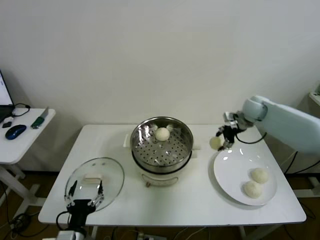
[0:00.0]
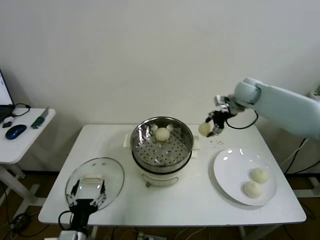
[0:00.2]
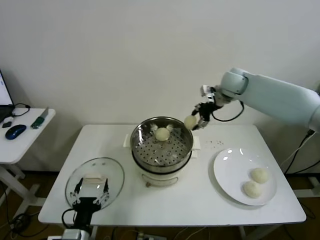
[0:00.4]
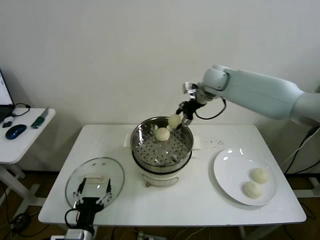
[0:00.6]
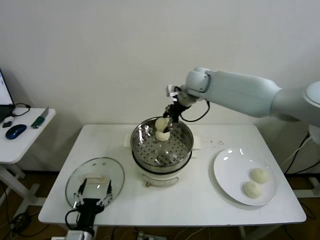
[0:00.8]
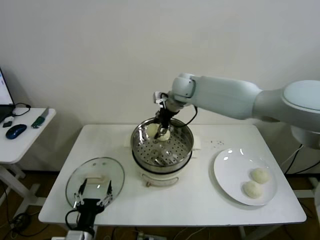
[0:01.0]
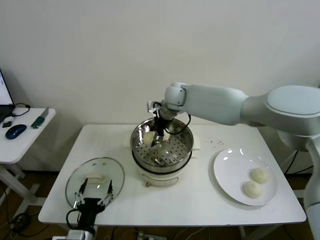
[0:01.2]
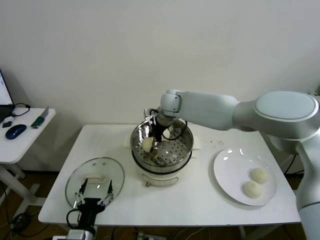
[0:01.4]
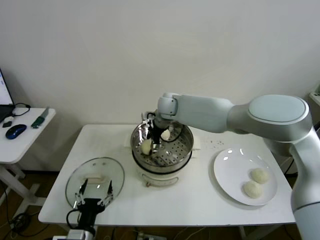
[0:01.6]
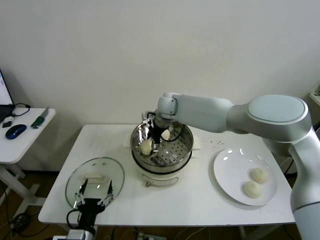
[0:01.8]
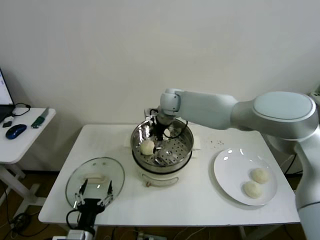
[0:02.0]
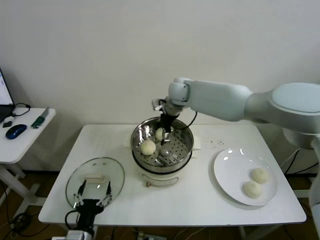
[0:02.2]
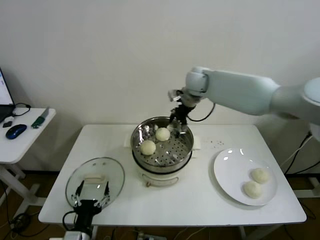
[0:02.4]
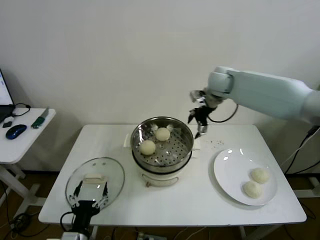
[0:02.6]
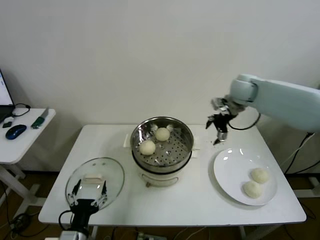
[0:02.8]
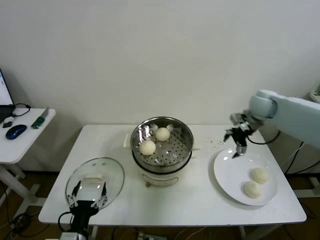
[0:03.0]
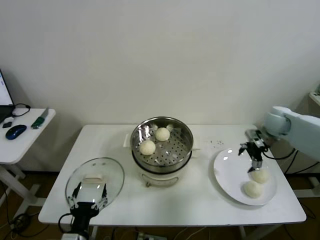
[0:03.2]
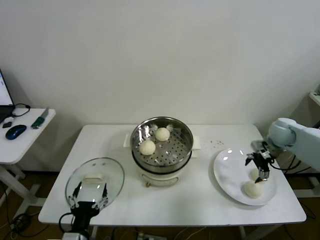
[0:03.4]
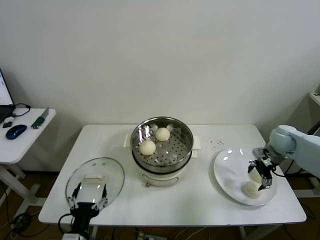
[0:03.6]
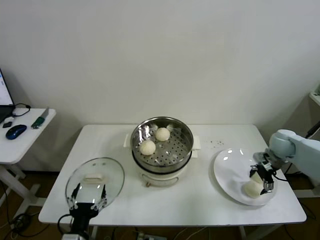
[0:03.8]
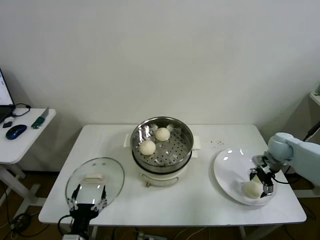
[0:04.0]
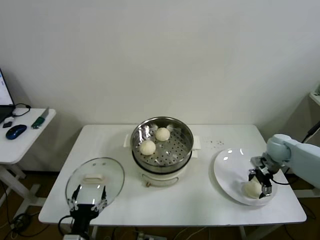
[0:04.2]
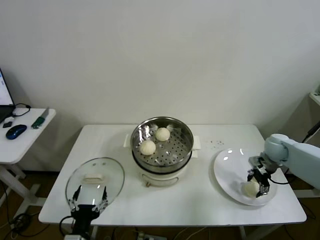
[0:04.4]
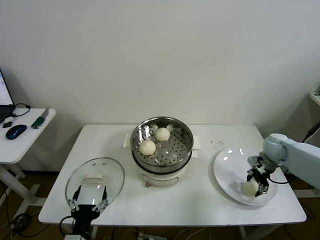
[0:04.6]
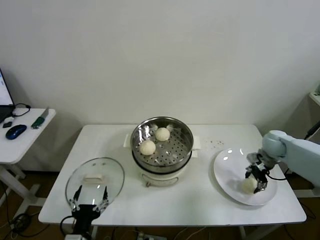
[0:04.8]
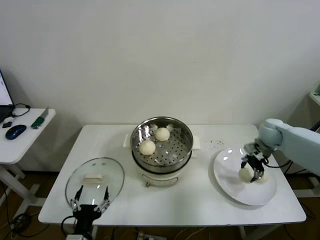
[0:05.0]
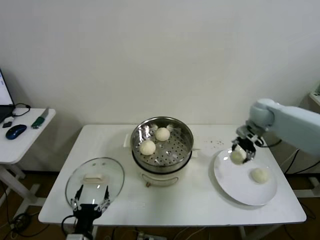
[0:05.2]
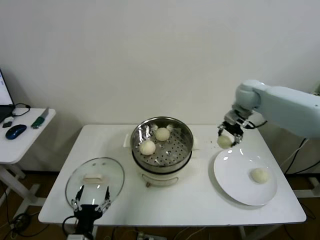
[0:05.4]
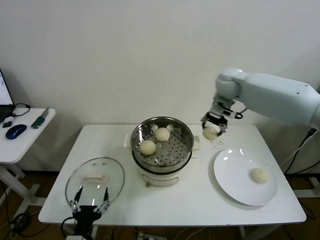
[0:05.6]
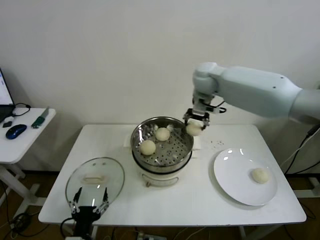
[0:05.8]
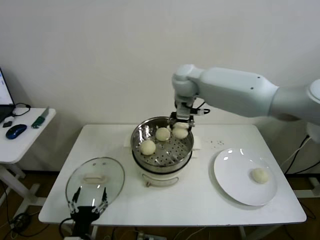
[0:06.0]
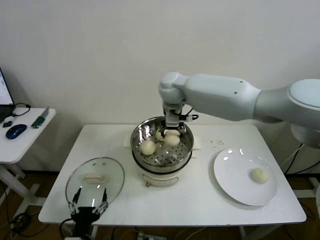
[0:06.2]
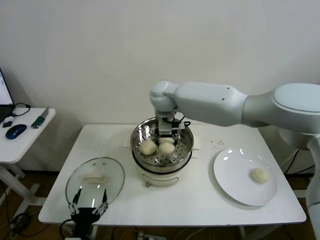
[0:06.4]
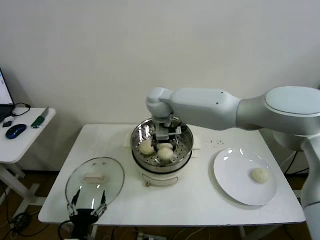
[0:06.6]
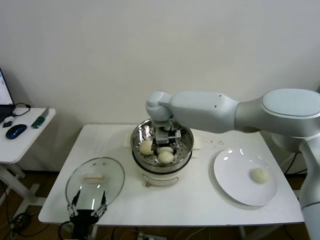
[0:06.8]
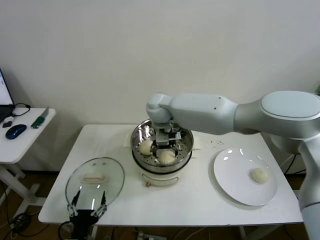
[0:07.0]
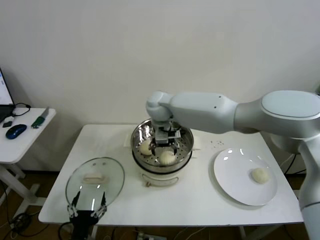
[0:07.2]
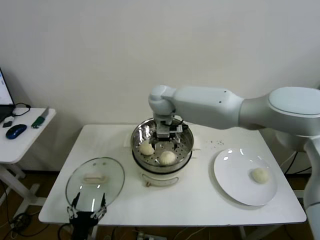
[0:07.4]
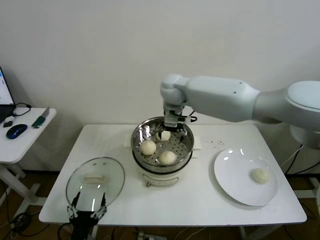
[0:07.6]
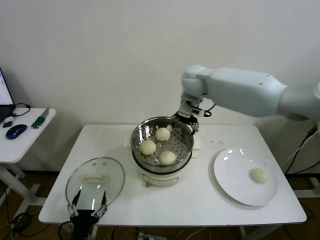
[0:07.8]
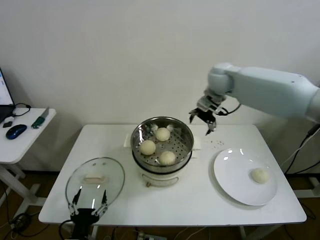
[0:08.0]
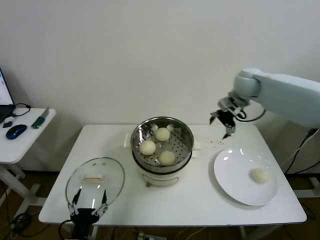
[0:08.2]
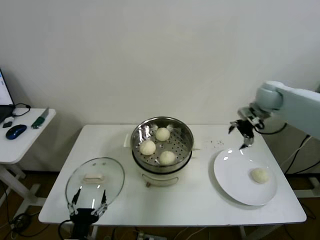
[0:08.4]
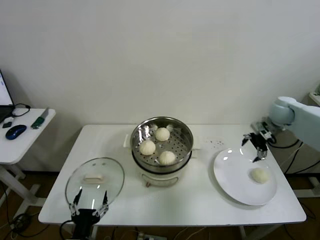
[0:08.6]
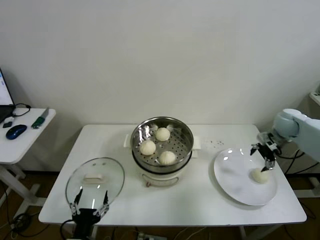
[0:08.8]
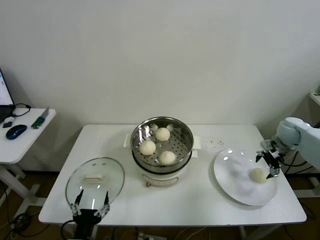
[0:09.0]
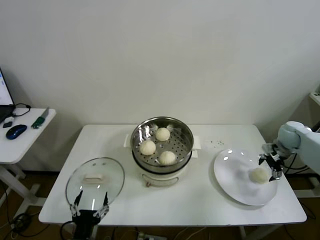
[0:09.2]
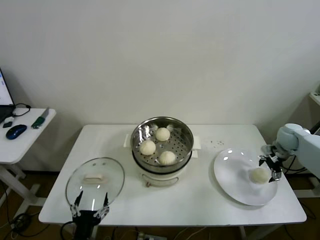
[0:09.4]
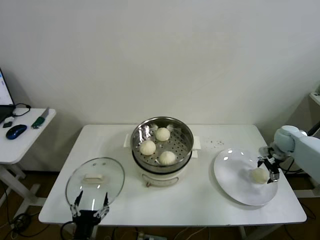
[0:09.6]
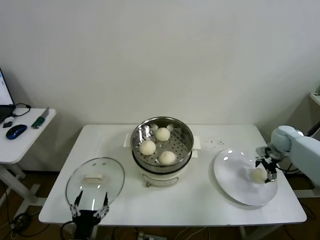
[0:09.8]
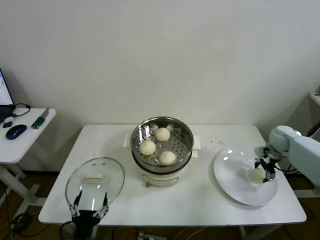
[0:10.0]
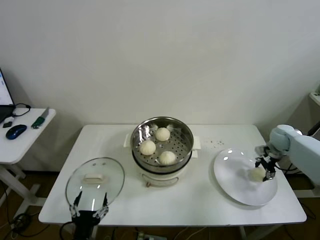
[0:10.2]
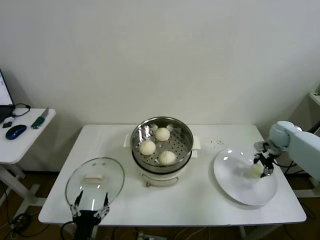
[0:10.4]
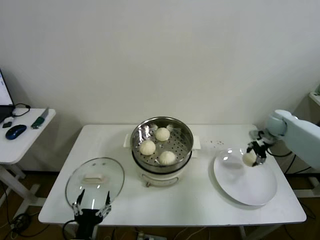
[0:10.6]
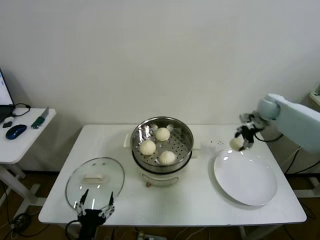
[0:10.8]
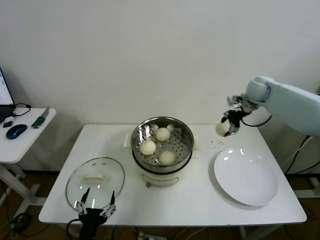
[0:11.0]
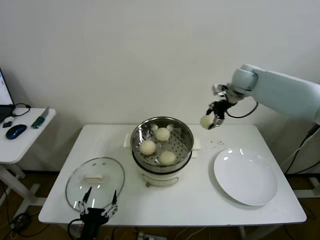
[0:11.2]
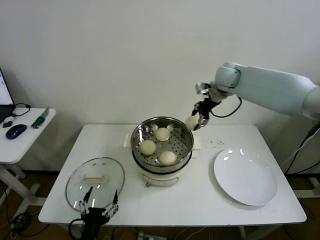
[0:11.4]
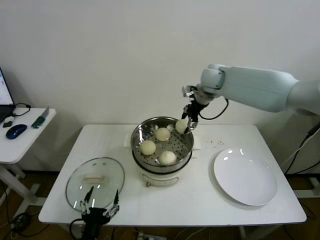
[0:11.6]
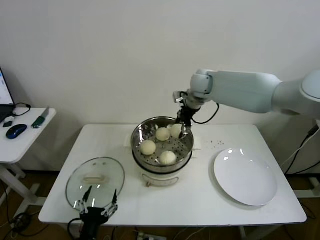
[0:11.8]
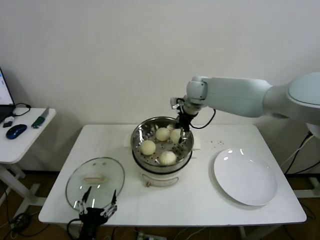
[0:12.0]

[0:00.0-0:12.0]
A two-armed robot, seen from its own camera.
Step, 0:00.0 to 0:01.6: Place the baozi on the steamer with right gripper.
Step, 0:01.8 to 0:04.2: Grasp the baozi in the plate with right gripper.
Step, 0:04.4 to 0:06.8: Place the baozi on the steamer with right gripper.
Step, 0:07.0 to 0:10.0: Grasp the baozi in the plate with right gripper.
0:00.0 to 0:01.6: The right gripper goes approximately 30 cm to the left, and opens its fingers.
0:01.6 to 0:03.0: The right gripper shifts about 30 cm to the right, and opens up.
0:03.0 to 0:04.4: The right gripper is displaced downward, to the right and backward by some 20 cm, and closes.
0:04.4 to 0:06.0: The right gripper is displaced to the left and upward by some 40 cm.
0:06.0 to 0:07.6: The right gripper opens its fingers.
0:07.6 to 0:09.0: The right gripper moves to the right, some 40 cm.
0:09.0 to 0:10.4: The right gripper closes.
0:10.4 to 0:12.0: The right gripper goes about 40 cm to the left and upward.

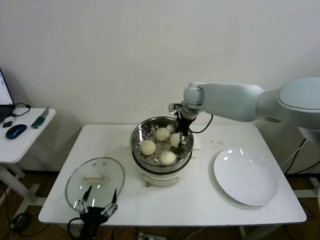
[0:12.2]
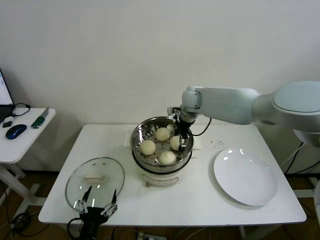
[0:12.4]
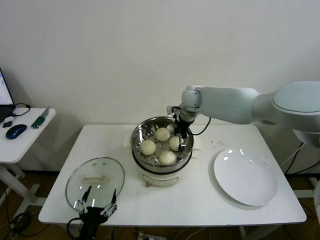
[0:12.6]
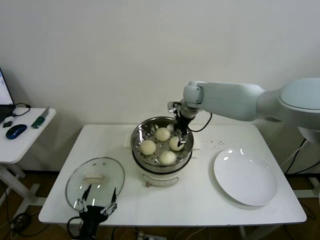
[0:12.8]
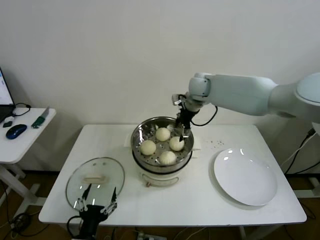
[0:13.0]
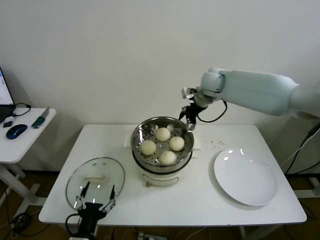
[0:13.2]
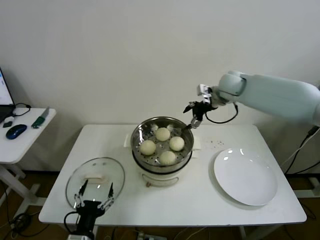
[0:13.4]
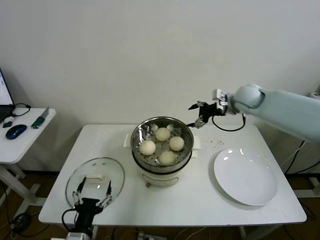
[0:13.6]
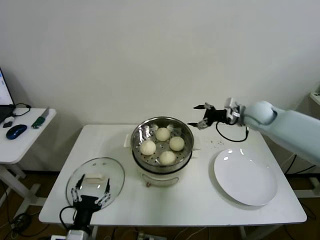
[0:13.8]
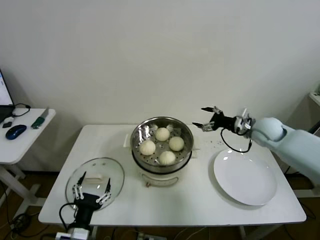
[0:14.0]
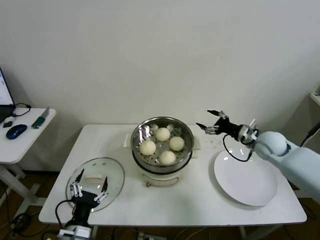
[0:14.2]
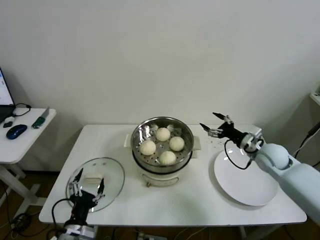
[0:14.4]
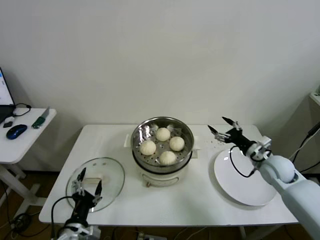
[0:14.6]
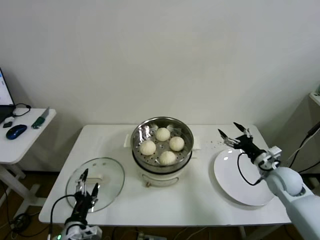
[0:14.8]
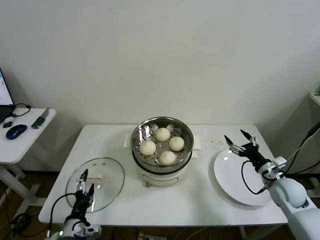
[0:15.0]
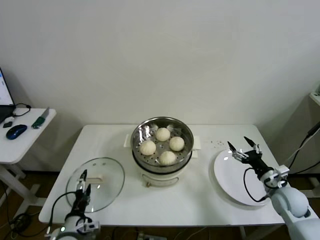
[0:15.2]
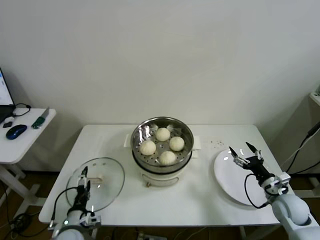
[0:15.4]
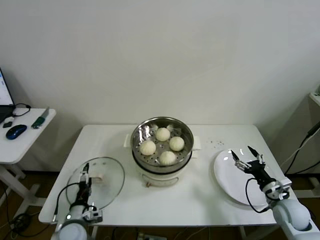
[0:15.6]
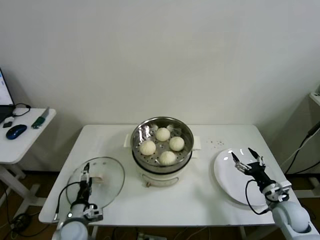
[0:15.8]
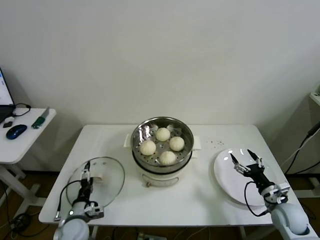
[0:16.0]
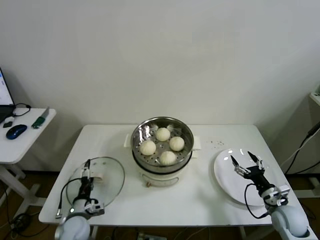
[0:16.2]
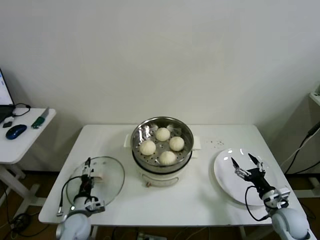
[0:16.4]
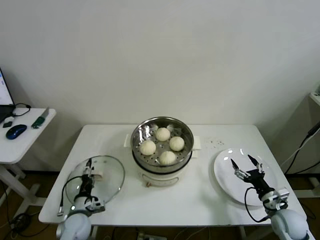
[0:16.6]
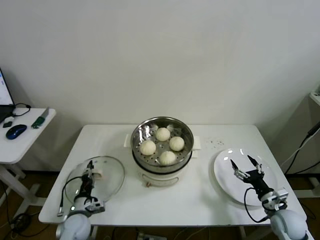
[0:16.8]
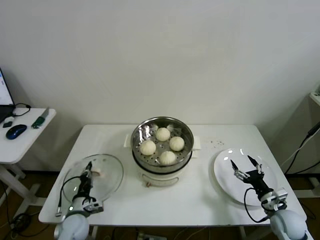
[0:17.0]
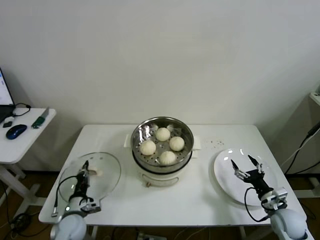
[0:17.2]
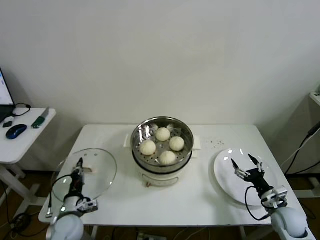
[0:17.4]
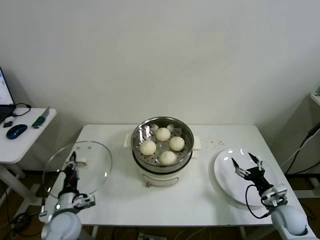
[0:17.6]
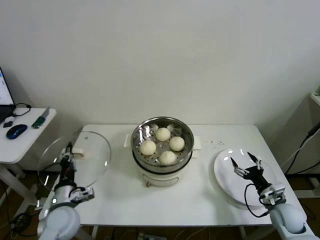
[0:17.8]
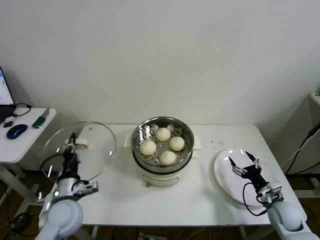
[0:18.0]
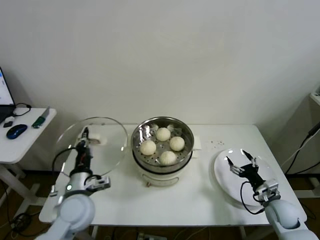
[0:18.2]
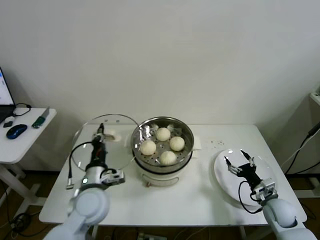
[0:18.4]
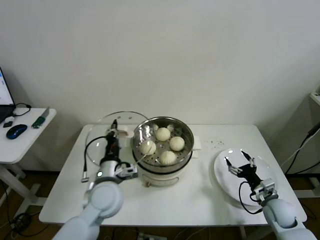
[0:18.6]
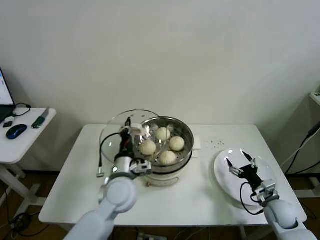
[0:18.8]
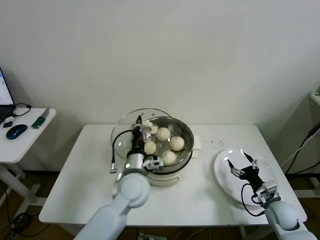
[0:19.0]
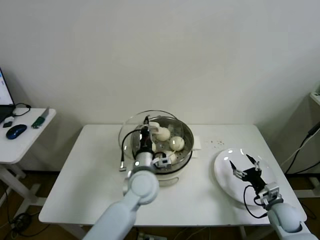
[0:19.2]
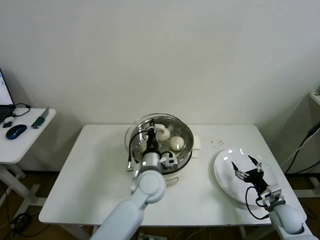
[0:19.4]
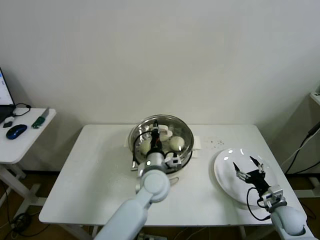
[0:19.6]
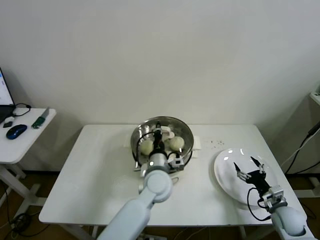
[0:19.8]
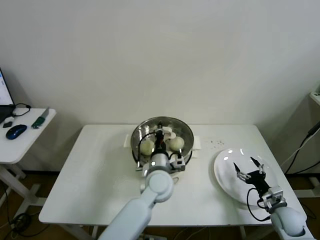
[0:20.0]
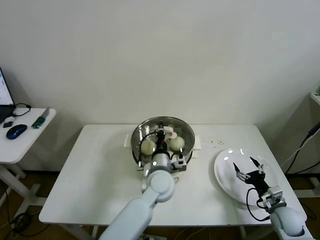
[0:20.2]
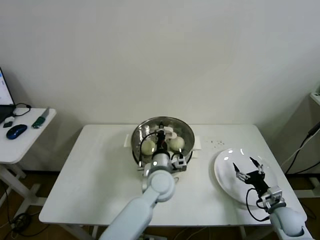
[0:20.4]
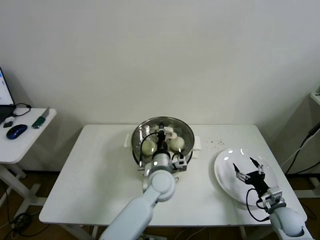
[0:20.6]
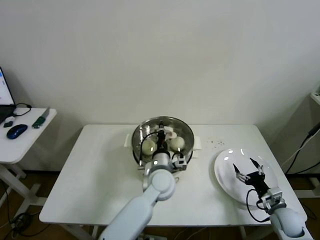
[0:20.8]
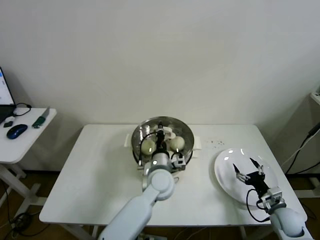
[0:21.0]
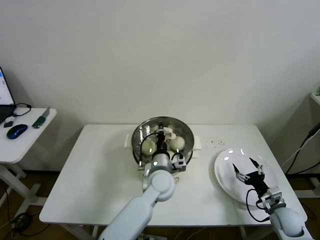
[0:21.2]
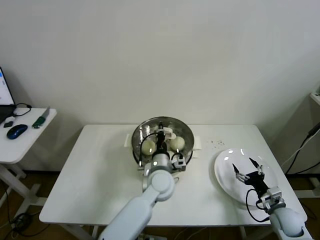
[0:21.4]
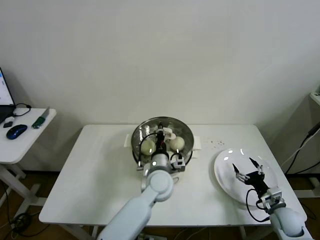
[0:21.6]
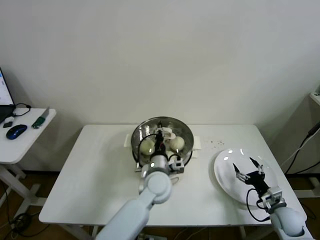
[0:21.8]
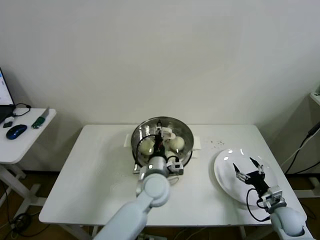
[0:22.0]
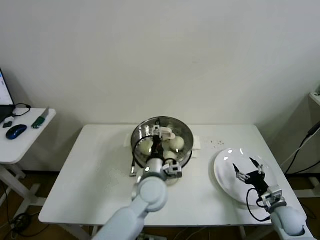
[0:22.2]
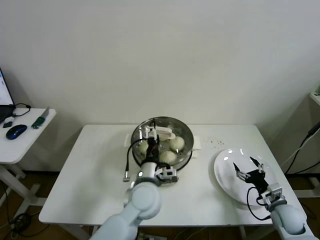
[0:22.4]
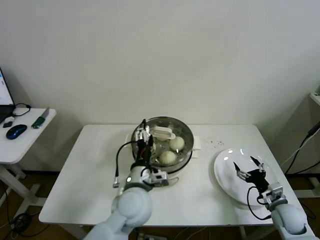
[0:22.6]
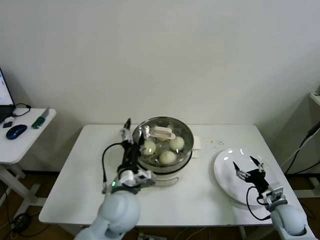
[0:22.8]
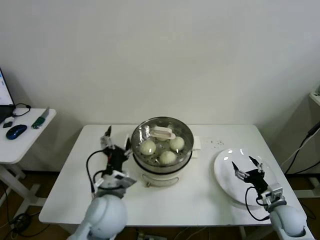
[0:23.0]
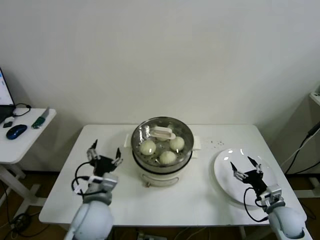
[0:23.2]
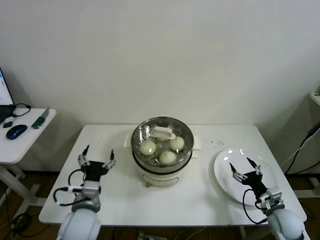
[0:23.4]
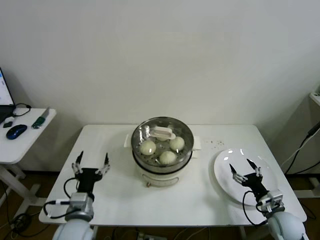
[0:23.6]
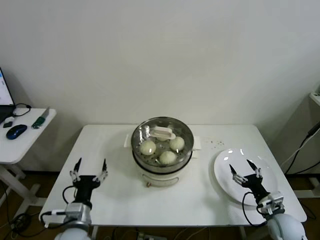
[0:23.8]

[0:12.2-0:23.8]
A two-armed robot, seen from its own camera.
Step, 0:12.6 to 0:17.0: Grasp the pot lid with left gripper.
Step, 0:17.2 to 0:21.6: Place the pot lid on the steamer with left gripper.
0:12.2 to 0:13.6: The right gripper travels to the right by roughly 15 cm, and opens up.
0:13.6 to 0:15.0: The right gripper heads downward, backward and to the right, covering roughly 35 cm. The left gripper moves approximately 5 cm.
0:15.0 to 0:16.6: The left gripper shifts roughly 15 cm forward and downward; the right gripper travels backward and downward by approximately 10 cm.
0:16.6 to 0:18.0: The left gripper travels upward by some 15 cm, and closes its fingers.
0:18.0 to 0:19.4: The left gripper travels to the right by roughly 25 cm.
0:19.4 to 0:21.0: The left gripper changes place by about 5 cm.
0:21.0 to 0:22.4: The left gripper travels backward by roughly 5 cm, and opens up.
0:22.4 to 0:23.8: The left gripper moves to the left and backward, some 25 cm.
